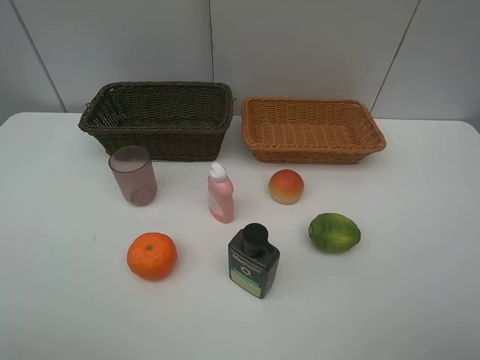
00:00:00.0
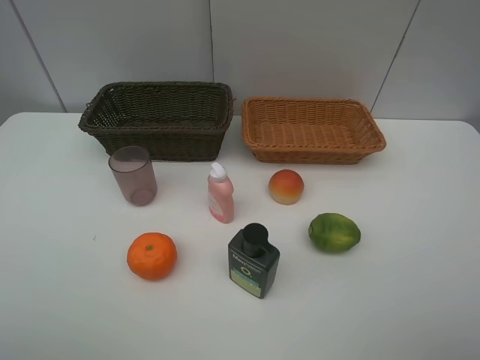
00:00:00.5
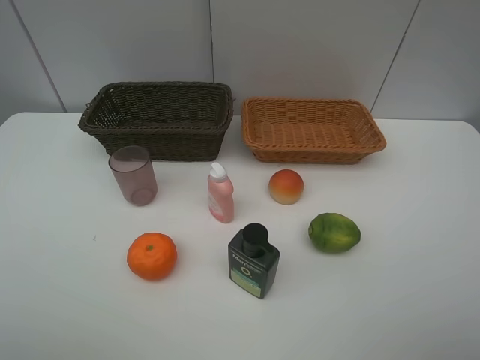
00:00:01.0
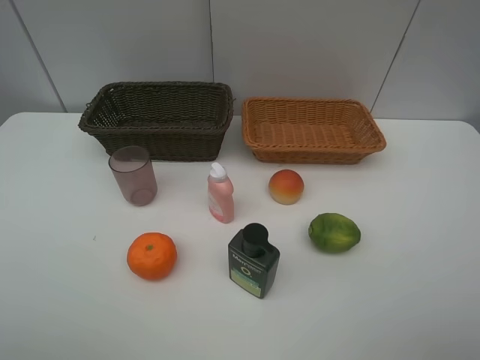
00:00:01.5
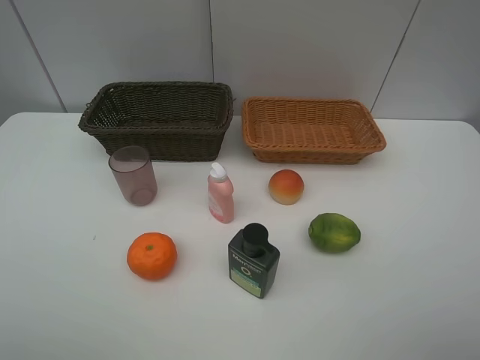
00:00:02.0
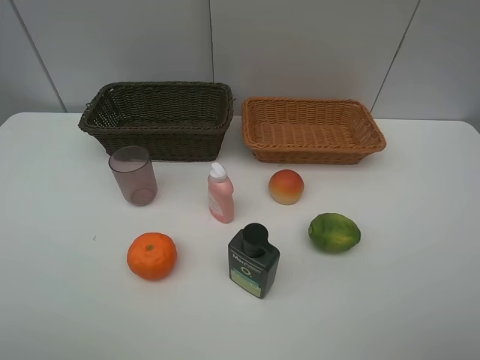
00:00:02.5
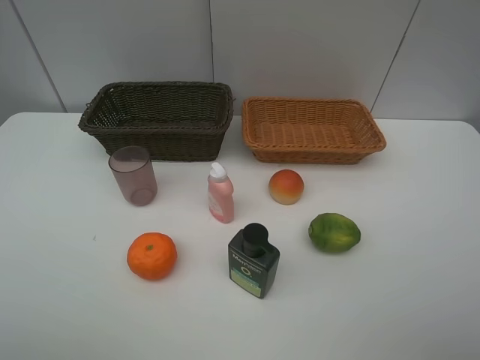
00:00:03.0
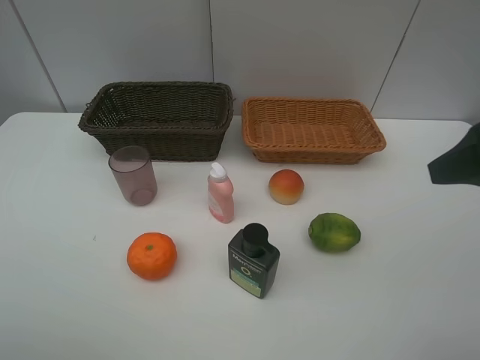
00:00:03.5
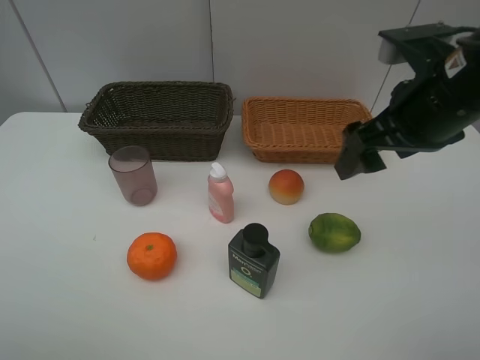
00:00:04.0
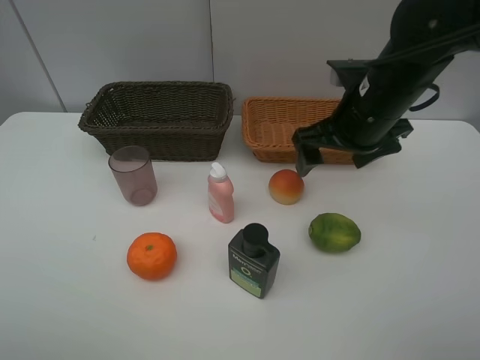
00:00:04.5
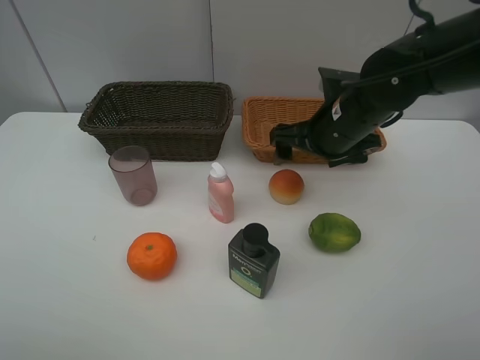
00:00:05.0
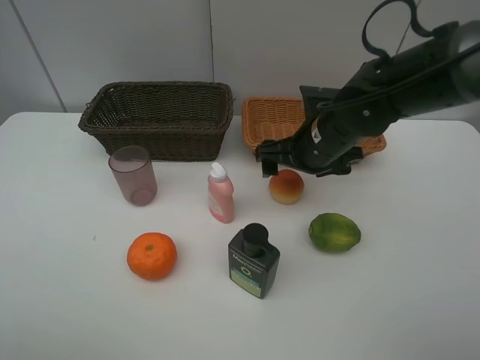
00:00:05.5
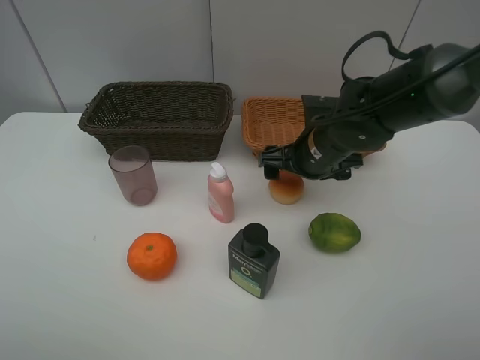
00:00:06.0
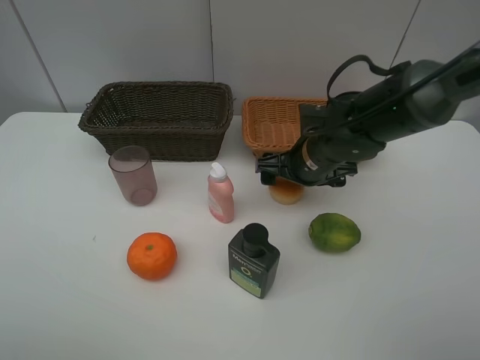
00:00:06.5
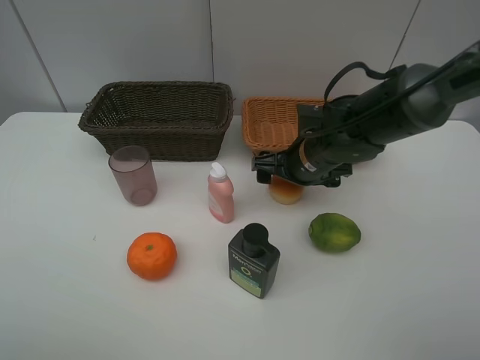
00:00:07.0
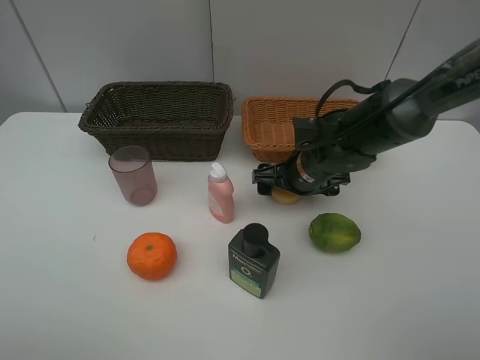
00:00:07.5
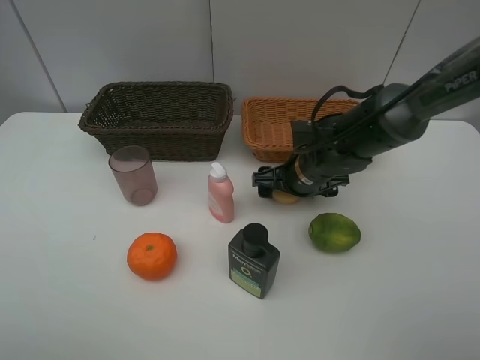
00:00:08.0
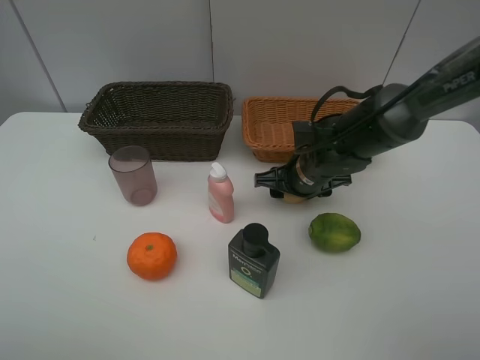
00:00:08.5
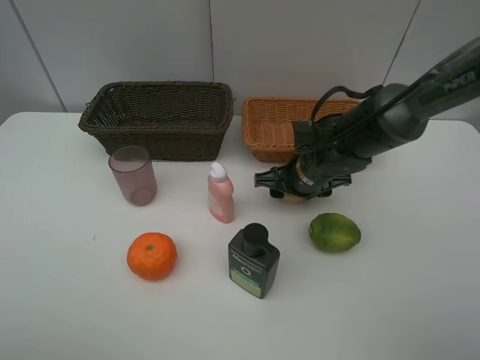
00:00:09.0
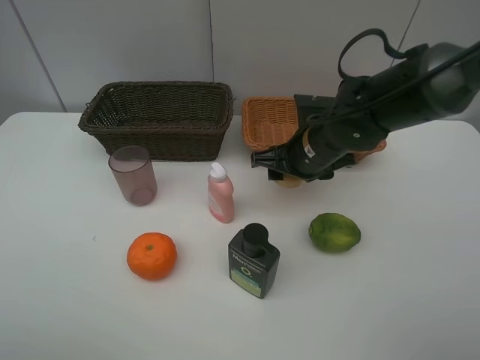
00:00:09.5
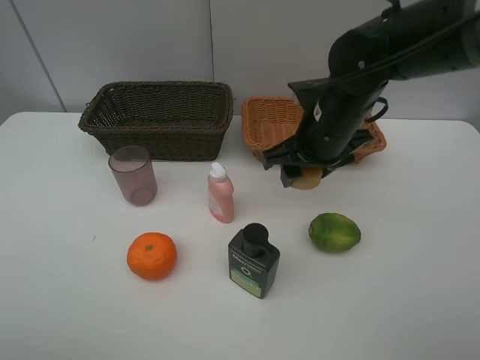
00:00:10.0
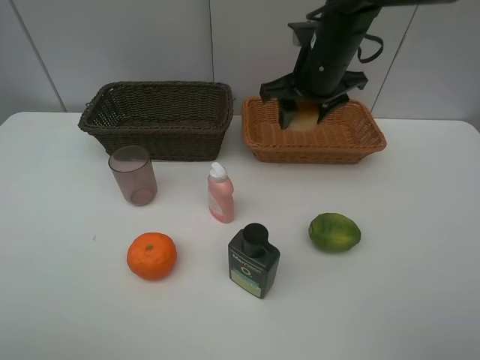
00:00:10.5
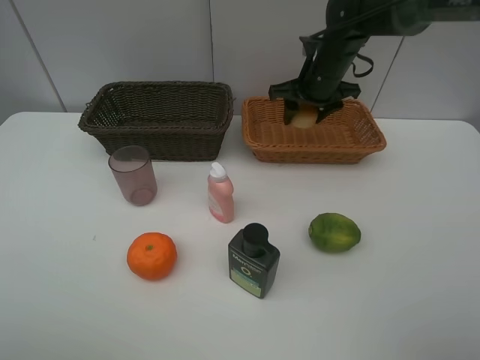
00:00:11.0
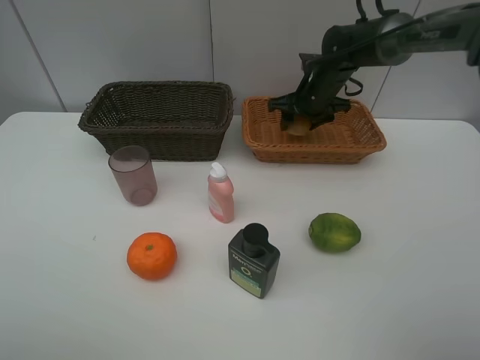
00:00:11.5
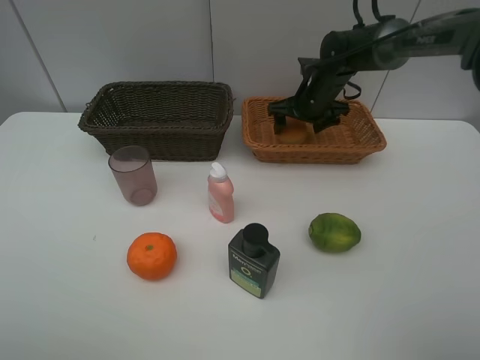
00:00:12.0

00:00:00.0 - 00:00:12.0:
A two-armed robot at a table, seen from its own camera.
Task of the whole recording: place multiple objects separately in different baskets.
00:00:00.0 - 00:00:02.0: The two grippers keep their place.
00:00:02.0 - 00:00:04.0: The right gripper heads forward and to the left, covering roughly 25 cm.
00:00:04.0 - 00:00:06.0: The right gripper moves downward, forward and to the left, roughly 15 cm.
00:00:06.0 - 00:00:08.0: The grippers move only a little.
00:00:08.0 - 00:00:10.0: The right gripper shifts roughly 10 cm upward, and closes up.
00:00:10.0 - 00:00:12.0: The right gripper goes roughly 15 cm forward, and opens up.

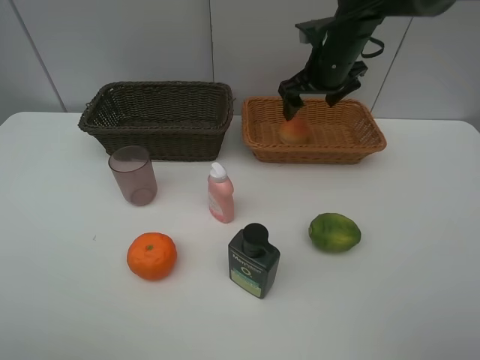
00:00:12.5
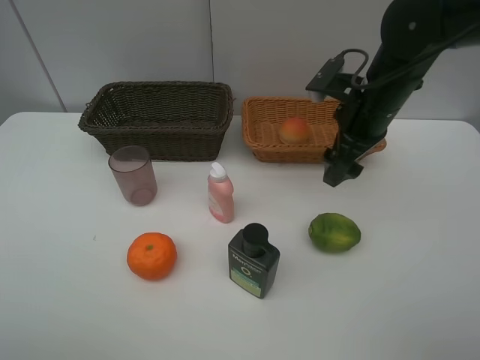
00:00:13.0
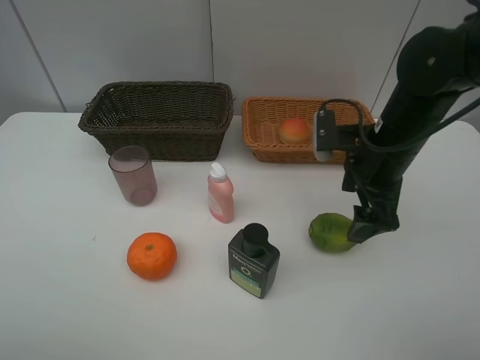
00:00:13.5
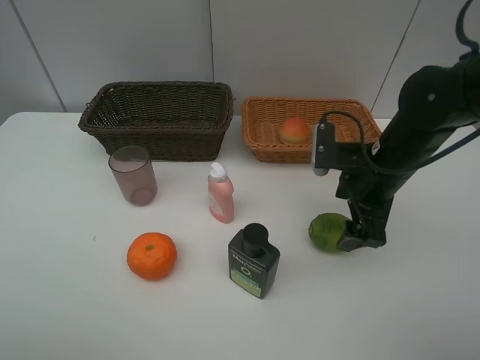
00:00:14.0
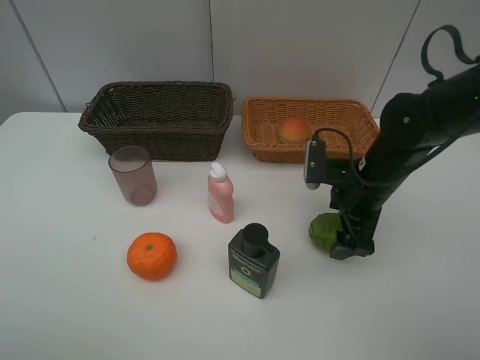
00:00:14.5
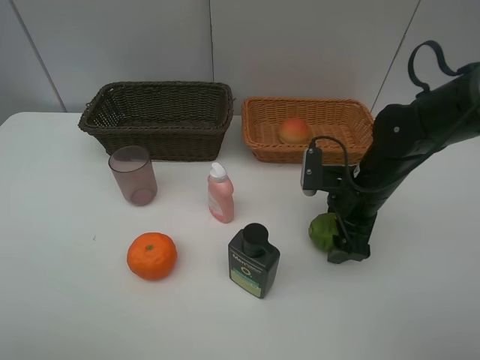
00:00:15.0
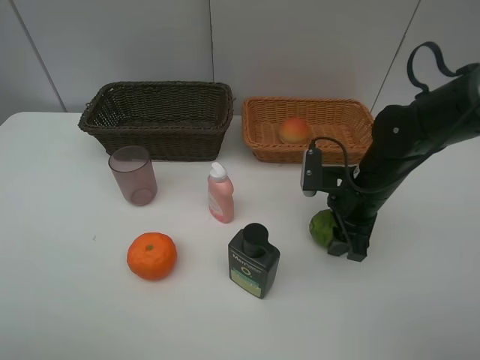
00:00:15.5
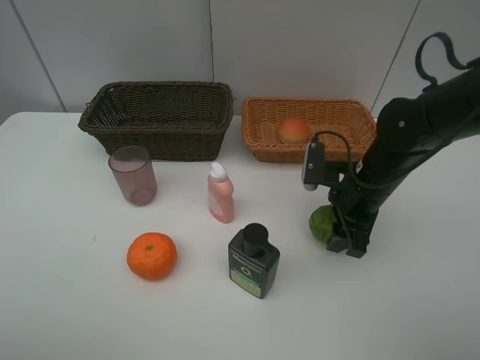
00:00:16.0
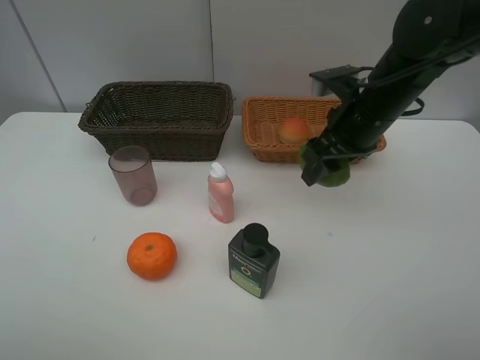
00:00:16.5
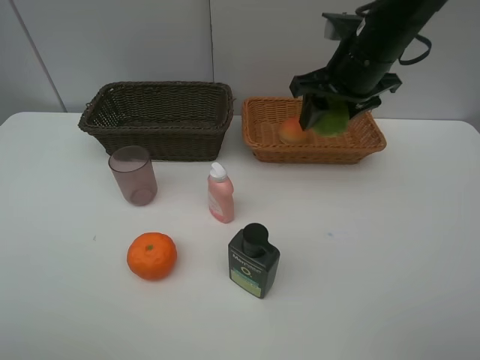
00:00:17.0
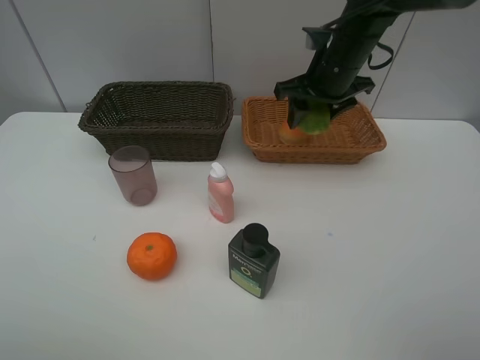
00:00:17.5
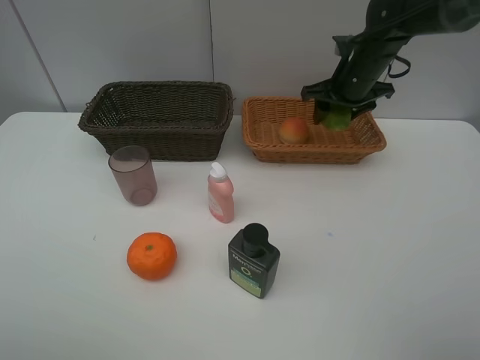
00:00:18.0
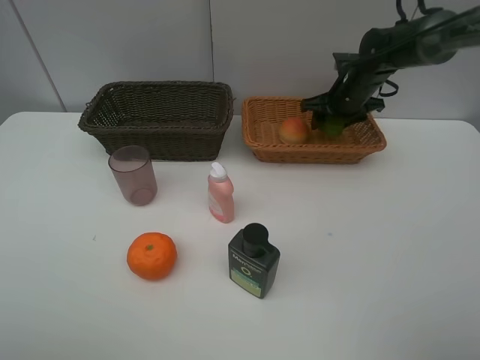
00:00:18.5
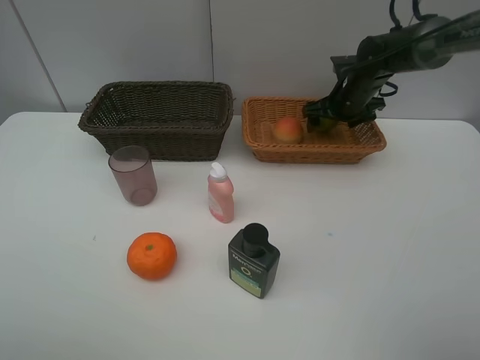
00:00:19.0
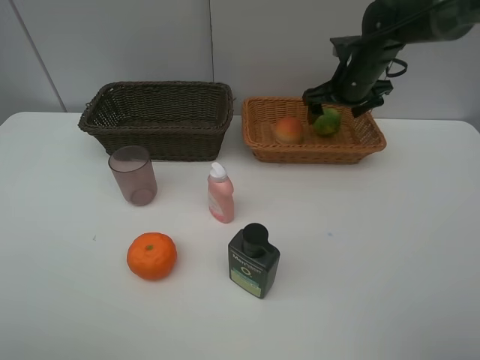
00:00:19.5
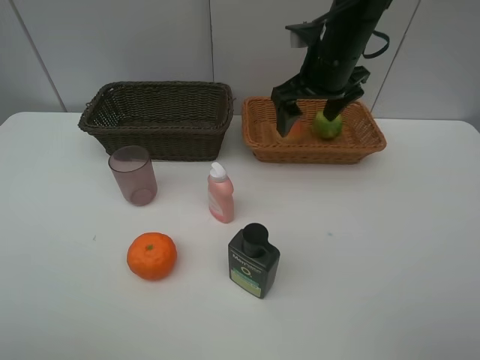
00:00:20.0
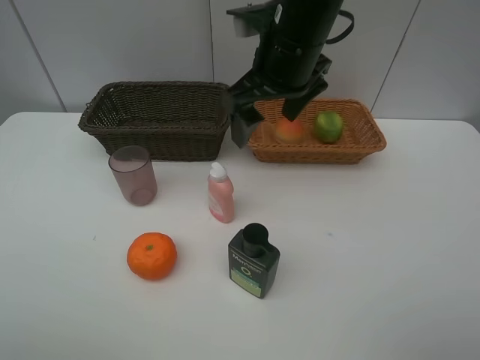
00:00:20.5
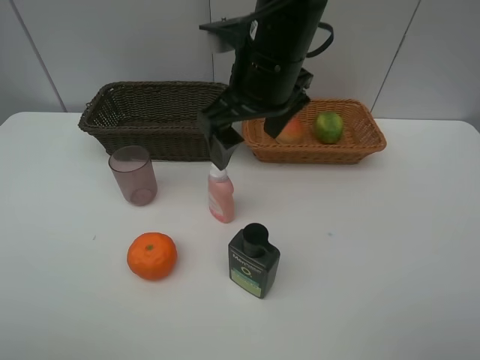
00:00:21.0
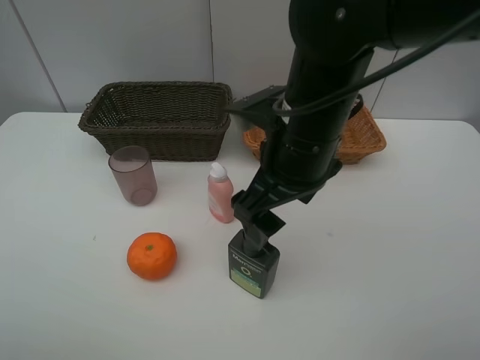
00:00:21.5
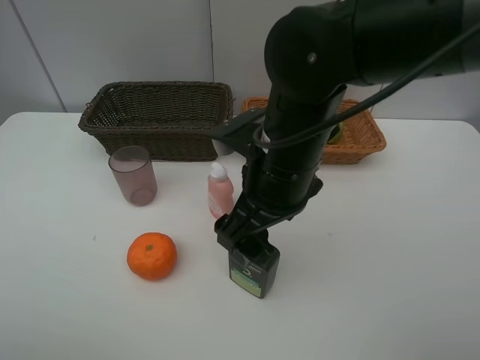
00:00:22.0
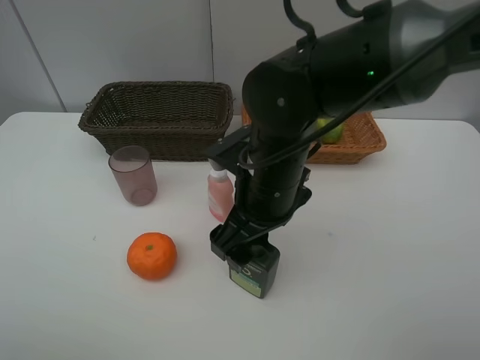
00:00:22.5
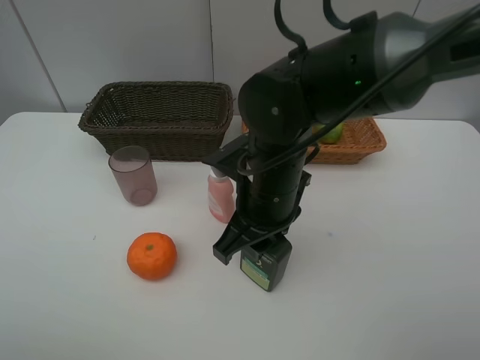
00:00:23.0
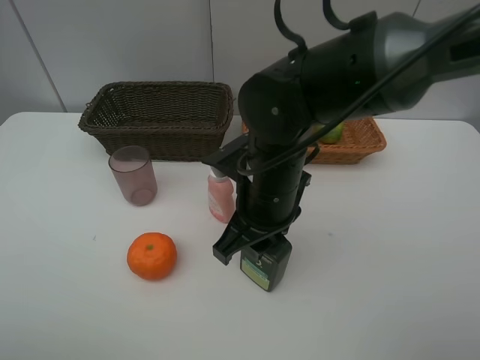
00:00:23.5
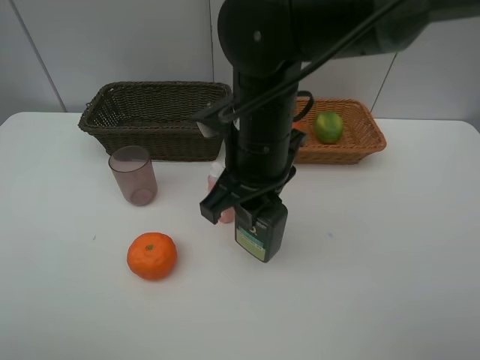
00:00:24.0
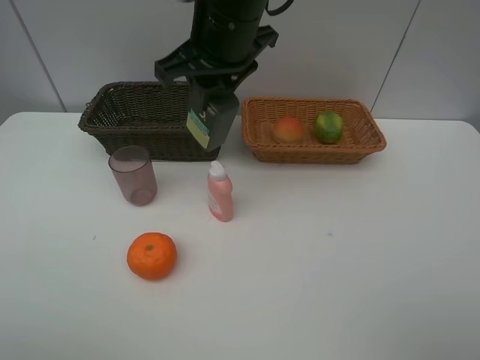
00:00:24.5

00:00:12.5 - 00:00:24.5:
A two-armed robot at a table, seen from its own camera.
Task of the whole recording: place multiple objects separately in different baskets.
00:00:12.5 - 00:00:14.5: The right gripper shifts about 20 cm backward and downward.
00:00:14.5 - 00:00:16.5: The right gripper heads upward, covering roughly 10 cm, and closes its fingers.
00:00:16.5 - 00:00:18.5: The right gripper goes roughly 20 cm forward and downward.
00:00:18.5 - 00:00:20.5: The right gripper moves backward, to the left and upward, some 25 cm, and opens.
00:00:20.5 - 00:00:22.5: The right gripper moves downward and backward, about 15 cm.
00:00:22.5 - 00:00:24.5: The right gripper heads upward and forward, covering some 15 cm, and closes its fingers.

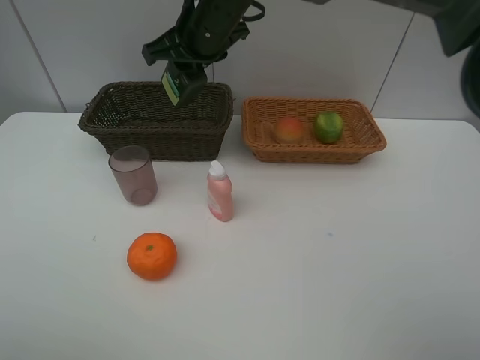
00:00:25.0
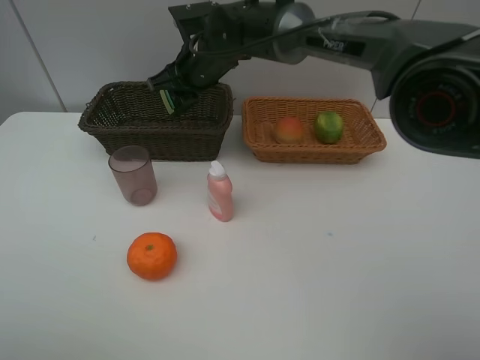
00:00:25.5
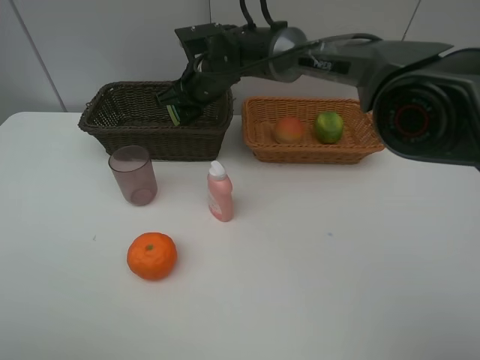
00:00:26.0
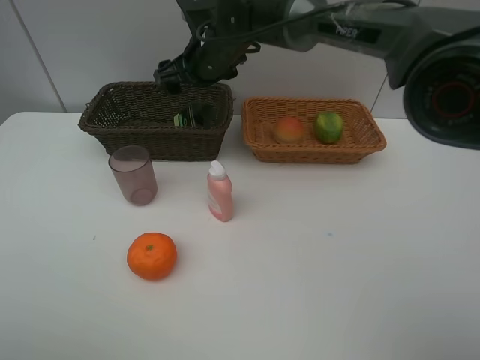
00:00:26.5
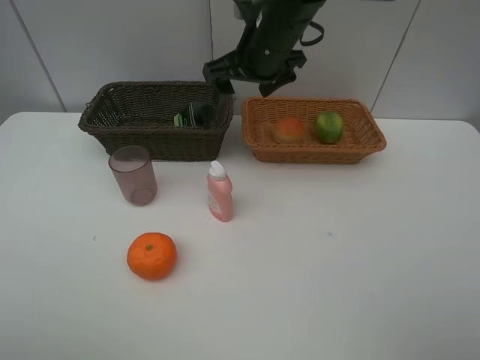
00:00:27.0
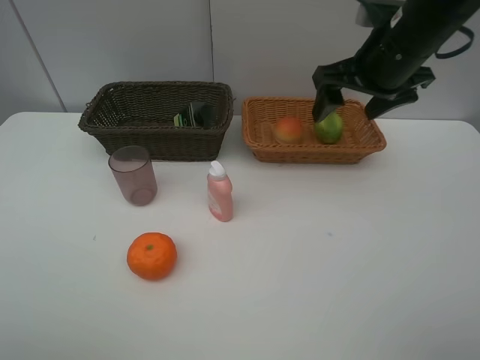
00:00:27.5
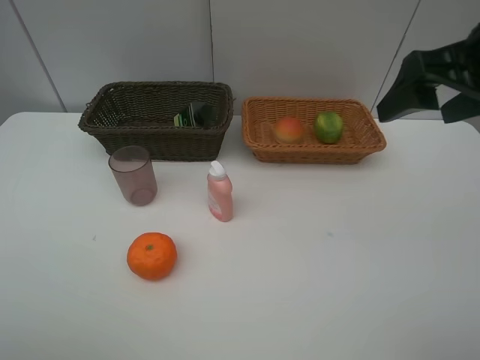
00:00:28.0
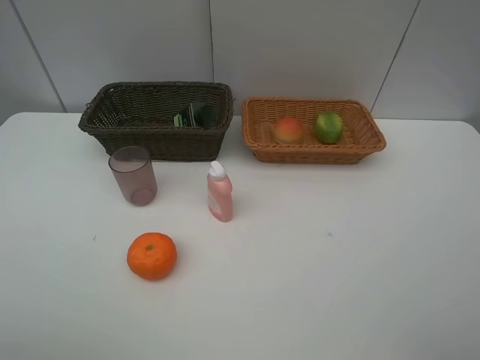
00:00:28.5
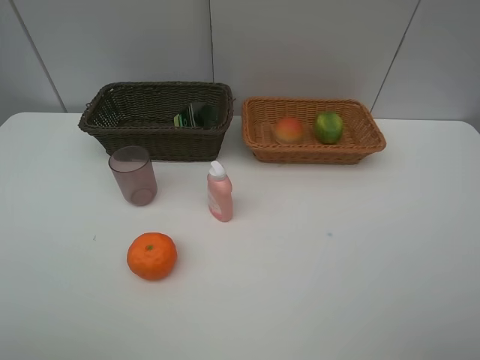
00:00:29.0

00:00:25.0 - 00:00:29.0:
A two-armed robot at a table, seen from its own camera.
Task of the whole recording: place multiple objects separately in different baskets.
00:00:25.0 - 00:00:27.0: The right gripper goes approximately 10 cm to the right, travels downward and back again, approximately 10 cm each way, and opens up.
00:00:27.0 - 00:00:29.0: The right gripper heads backward and to the right, covering approximately 40 cm.
